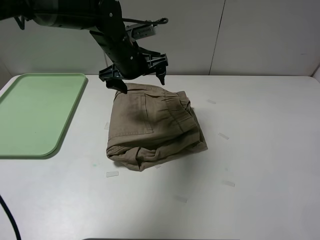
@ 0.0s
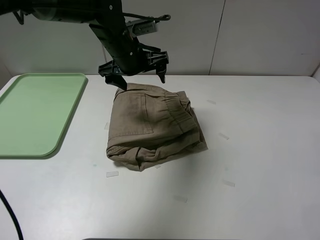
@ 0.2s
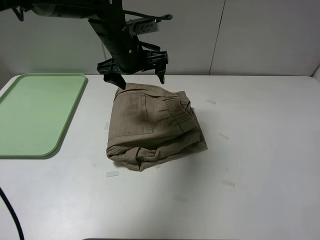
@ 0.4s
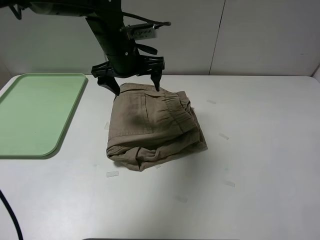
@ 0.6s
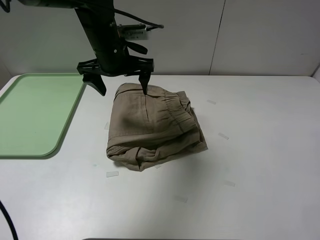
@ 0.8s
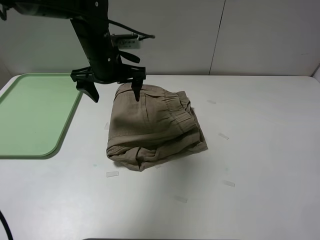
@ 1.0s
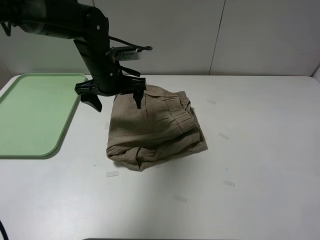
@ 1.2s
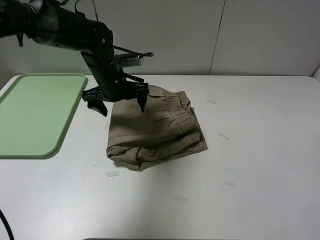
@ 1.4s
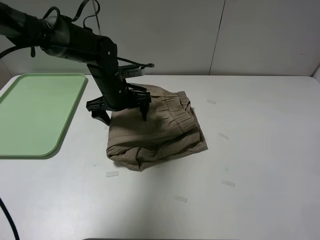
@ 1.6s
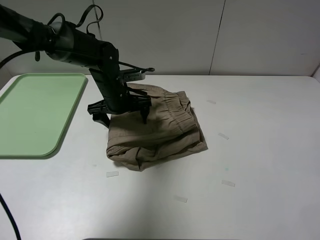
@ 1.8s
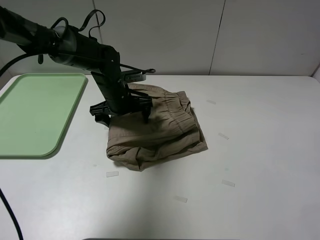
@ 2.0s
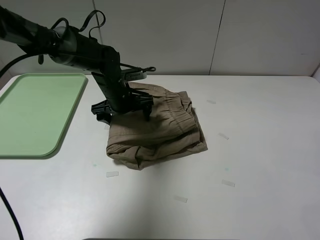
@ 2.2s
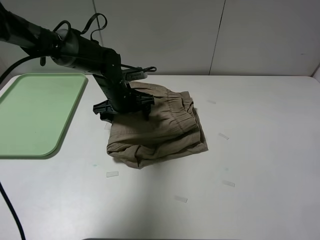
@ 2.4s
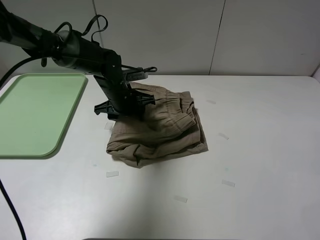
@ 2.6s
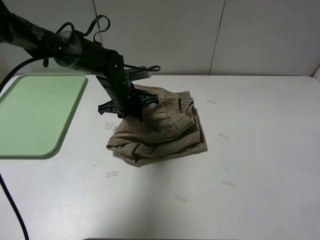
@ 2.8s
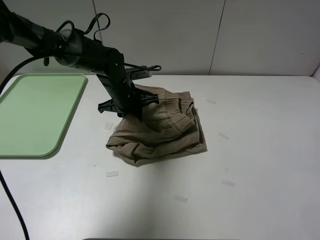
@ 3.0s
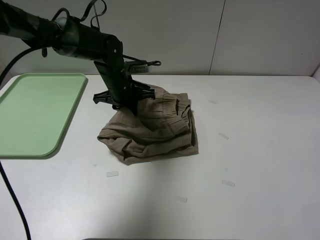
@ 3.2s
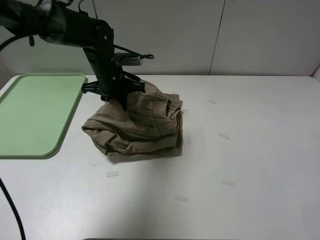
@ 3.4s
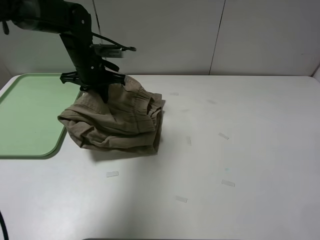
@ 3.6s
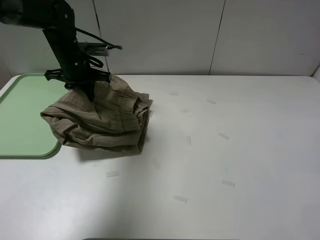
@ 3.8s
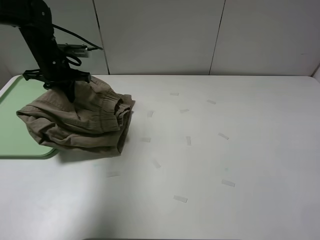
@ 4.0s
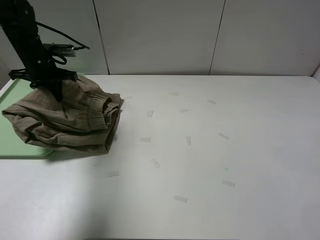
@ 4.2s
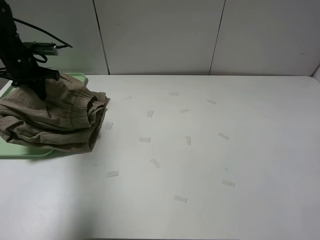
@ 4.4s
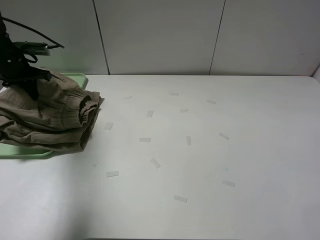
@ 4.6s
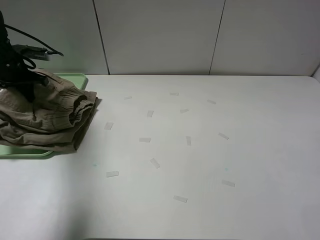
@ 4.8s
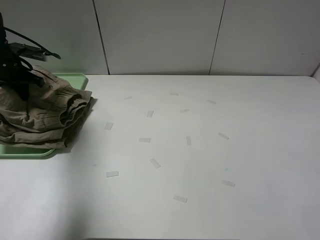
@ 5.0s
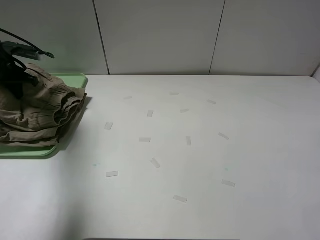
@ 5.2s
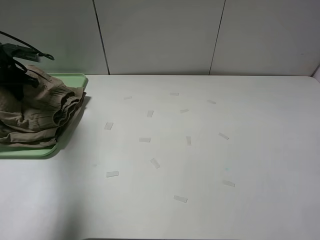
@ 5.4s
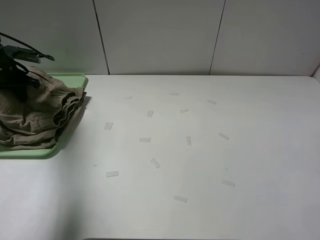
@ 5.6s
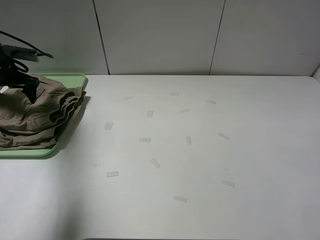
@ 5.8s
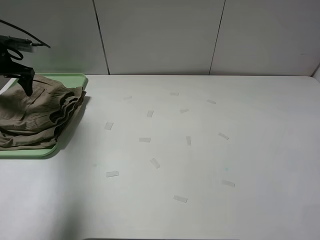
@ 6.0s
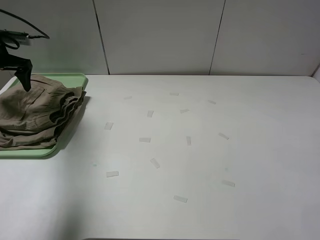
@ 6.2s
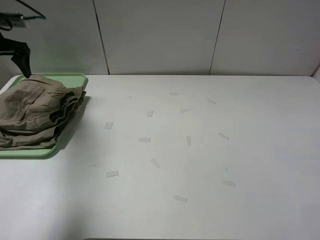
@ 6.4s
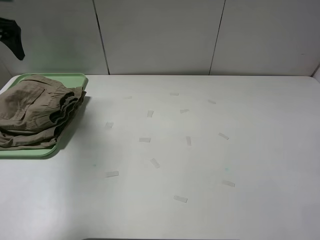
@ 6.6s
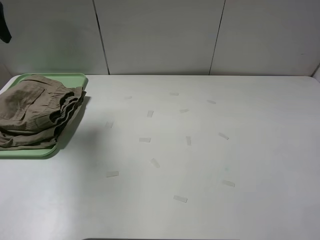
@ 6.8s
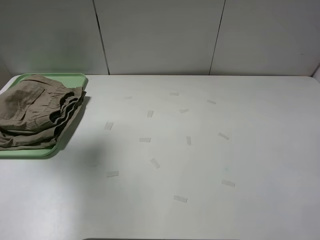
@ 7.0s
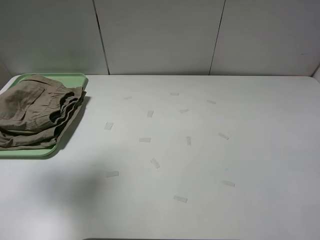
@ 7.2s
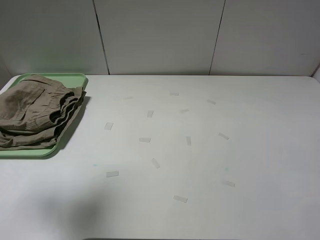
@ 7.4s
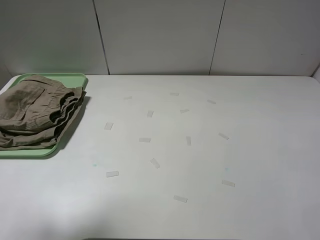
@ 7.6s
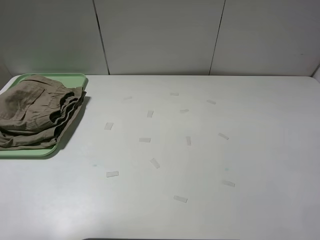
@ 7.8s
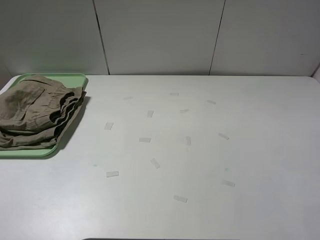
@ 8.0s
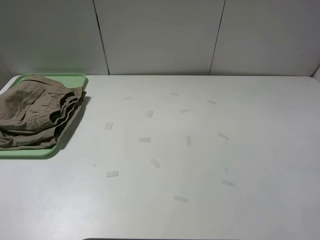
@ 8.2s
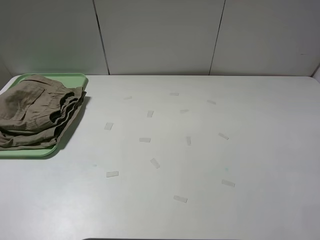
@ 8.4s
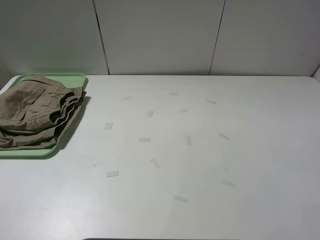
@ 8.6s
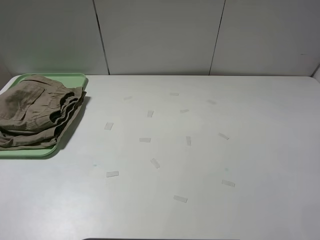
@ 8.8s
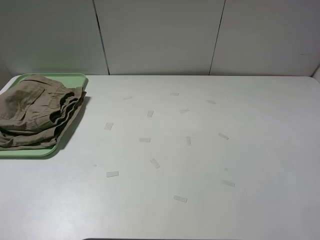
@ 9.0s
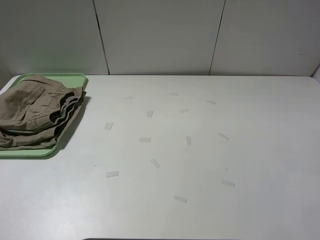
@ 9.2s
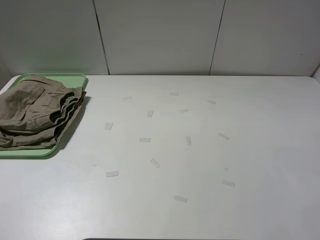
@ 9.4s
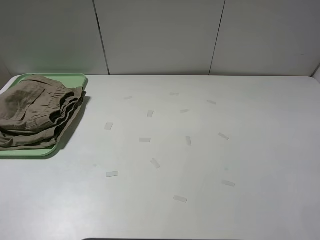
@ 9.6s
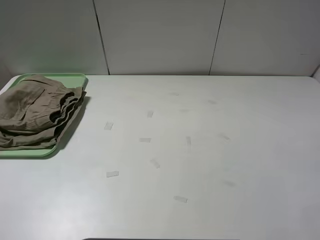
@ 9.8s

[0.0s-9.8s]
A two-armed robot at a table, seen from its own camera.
Task of the whole recording: fold the khaki jeans in half with two grippers, then fold them in half again, and use the left claw to place the folded fold khaki jeans on the tray.
Step, 0.0s to 3.2s: Grasp the khaki trousers with the left gripper.
Step, 3.4s to 6.0s: Place the folded khaki trousers on the green tray with the left gripper.
0.0s to 1.4s: The left gripper is displaced downward by approximately 5 cm.
1.4s to 2.8s: The left gripper closes.
2.8s to 4.2s: The left gripper is displaced to the left by roughly 20 cm.
4.2s to 5.6s: The left gripper shifts about 10 cm to the left, and opens.
5.6s to 7.0s: The left gripper goes roughly 25 cm upward and backward, and opens.
7.0s to 8.4s: The left gripper shifts some 30 cm backward.
